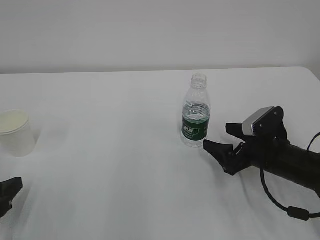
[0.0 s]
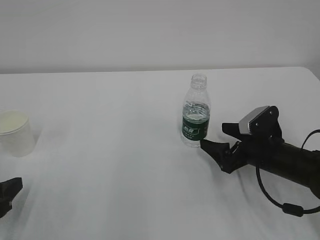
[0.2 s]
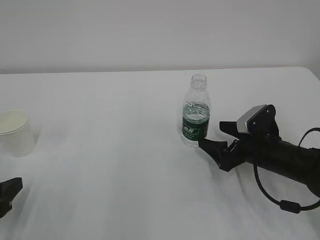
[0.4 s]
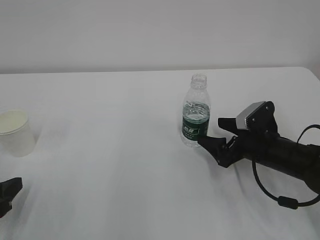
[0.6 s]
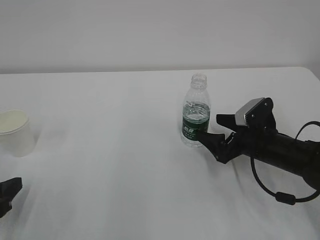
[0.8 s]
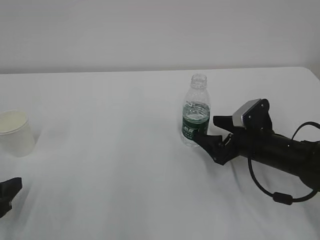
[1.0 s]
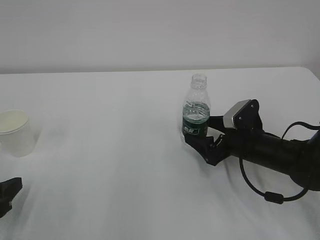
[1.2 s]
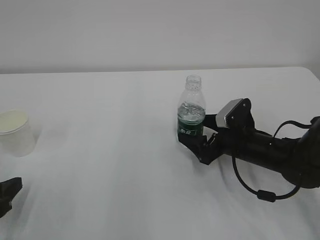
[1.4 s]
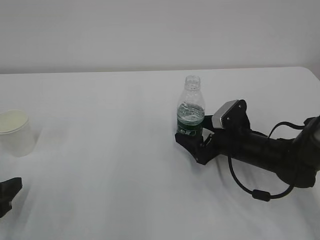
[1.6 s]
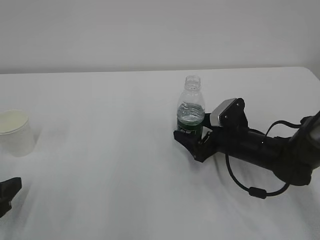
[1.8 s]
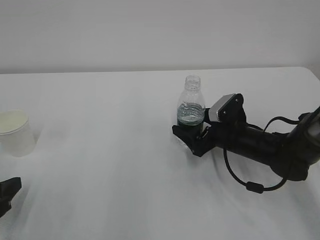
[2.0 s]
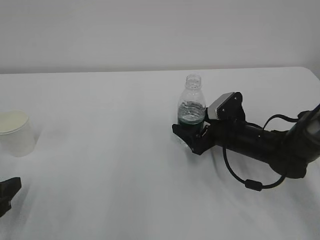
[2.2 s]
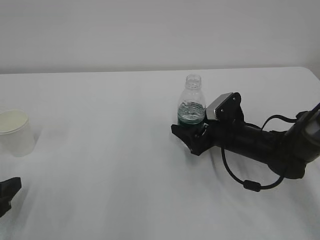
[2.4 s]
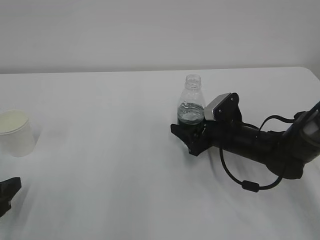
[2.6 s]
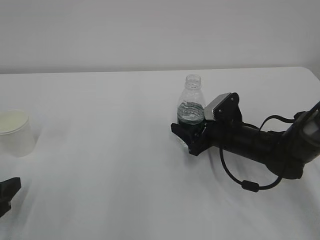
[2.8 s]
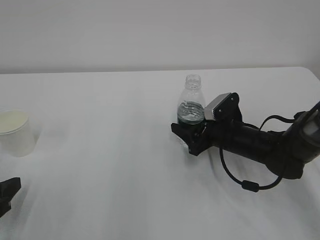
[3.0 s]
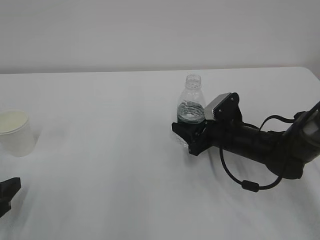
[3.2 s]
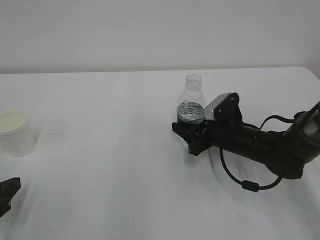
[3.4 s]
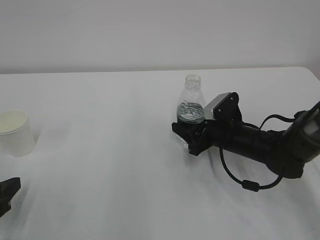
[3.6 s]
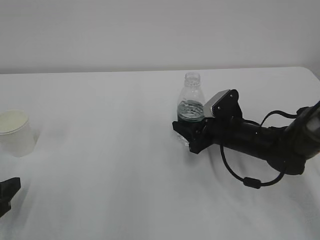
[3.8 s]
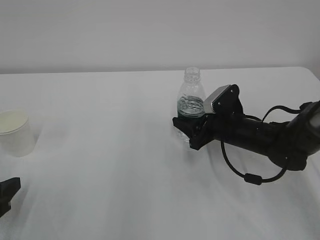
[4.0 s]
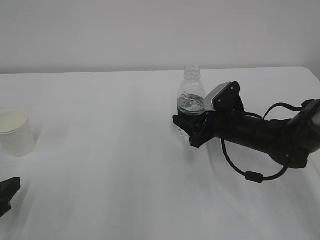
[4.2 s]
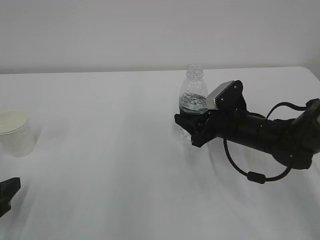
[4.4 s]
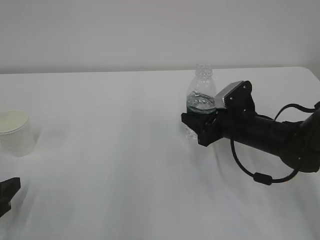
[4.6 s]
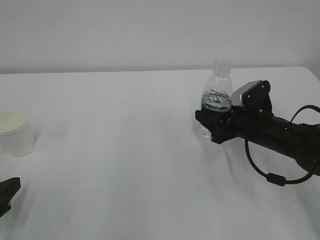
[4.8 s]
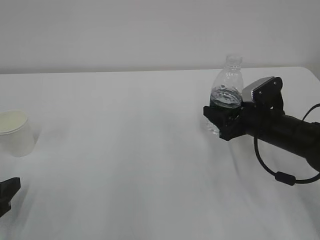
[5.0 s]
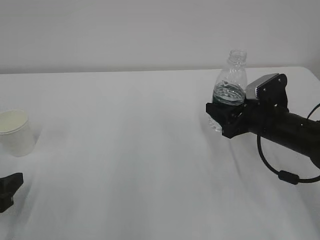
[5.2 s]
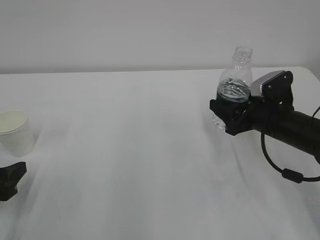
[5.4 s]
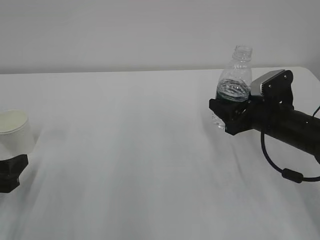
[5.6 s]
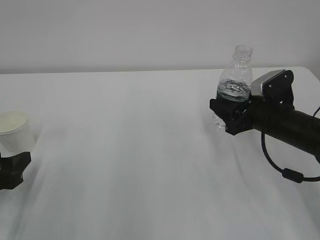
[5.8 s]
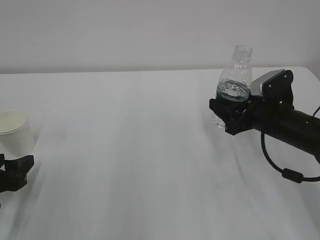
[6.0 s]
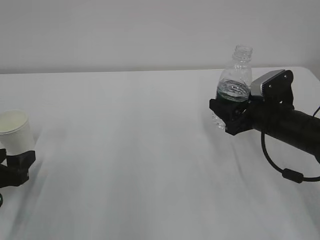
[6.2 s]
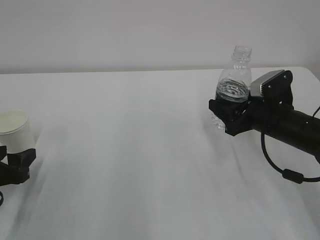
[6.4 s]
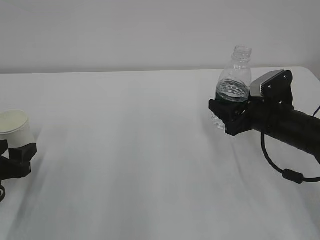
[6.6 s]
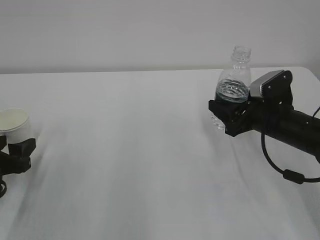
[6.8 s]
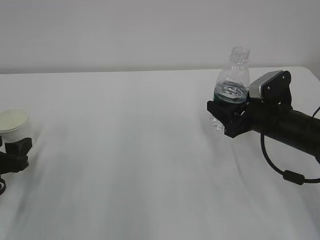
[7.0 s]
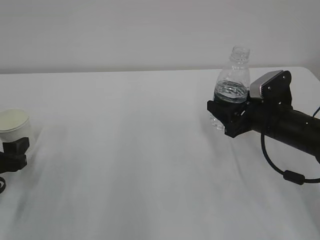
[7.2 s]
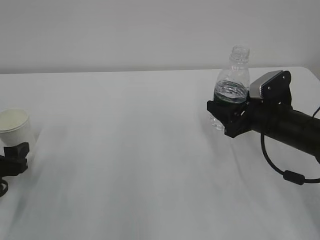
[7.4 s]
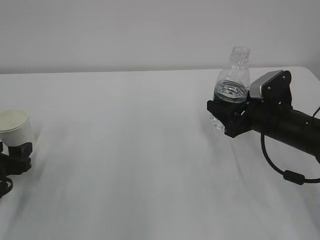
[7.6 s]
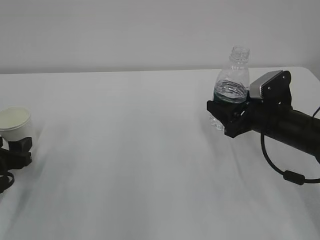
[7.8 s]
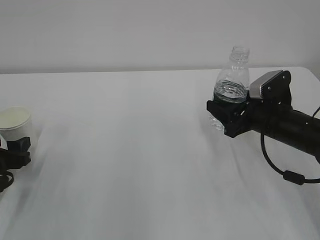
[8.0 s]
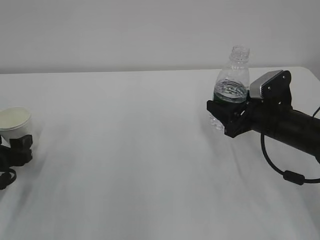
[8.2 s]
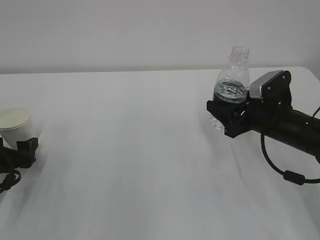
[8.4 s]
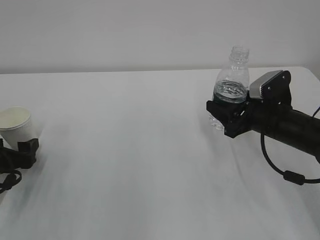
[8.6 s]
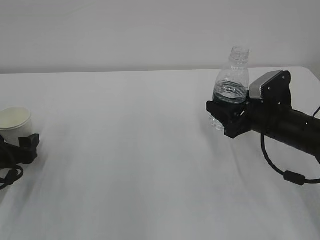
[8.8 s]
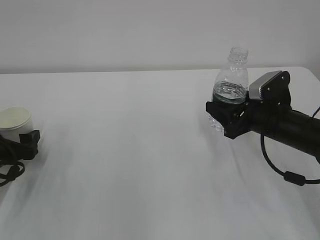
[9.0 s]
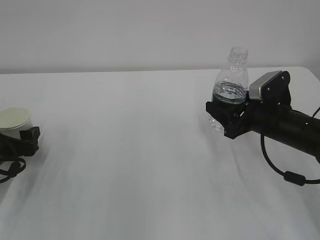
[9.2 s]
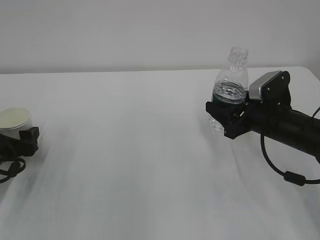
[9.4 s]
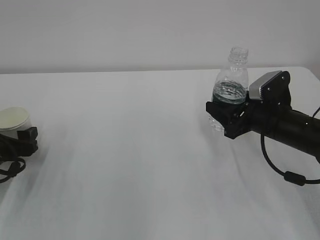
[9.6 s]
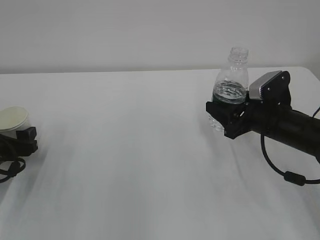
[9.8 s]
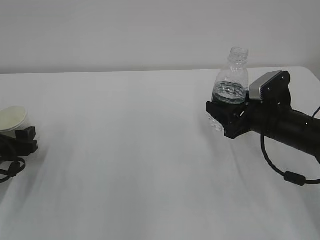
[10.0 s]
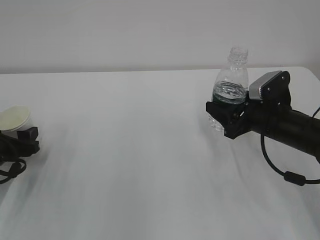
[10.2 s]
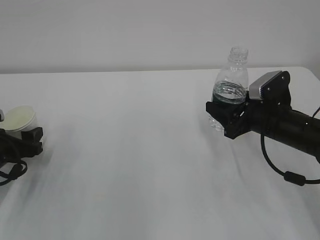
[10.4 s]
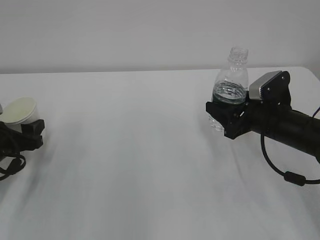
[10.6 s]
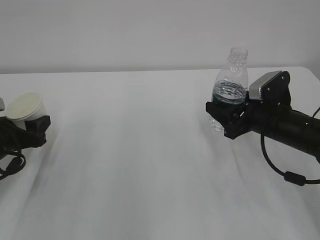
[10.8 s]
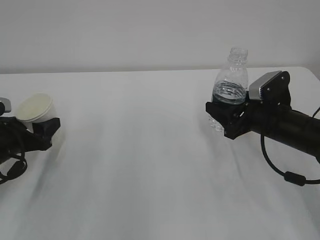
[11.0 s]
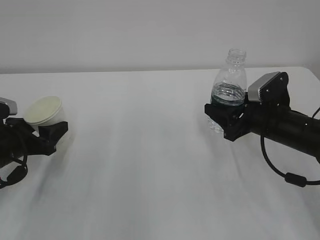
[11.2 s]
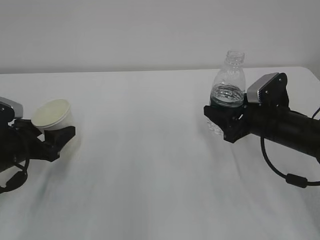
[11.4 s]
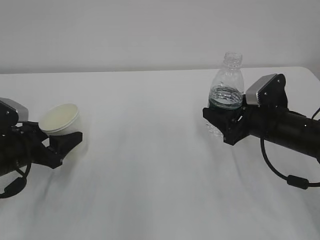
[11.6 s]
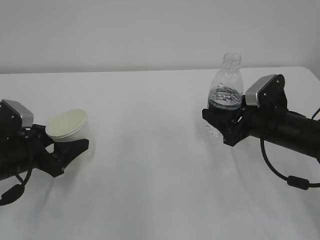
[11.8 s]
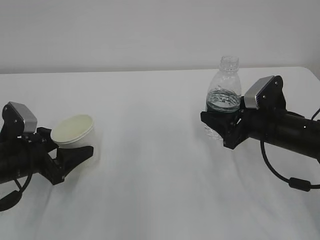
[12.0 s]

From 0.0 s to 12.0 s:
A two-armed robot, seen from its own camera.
From 0.0 s to 1.6 s: The right gripper shifts by roughly 5 cm.
From 1.6 s to 3.0 s: The right gripper closes.
From 3.0 s to 4.4 s: The grippers stay close to where they were, moving slightly.
From 4.4 s to 6.0 s: The right gripper is displaced to the right by approximately 5 cm.
From 6.0 s to 7.6 s: The grippers make only small movements.
From 7.6 s to 9.0 s: The left gripper opens.
From 9.0 s to 10.4 s: The left gripper closes its fingers.
From 10.4 s to 12.0 s: The left gripper travels to the right by roughly 5 cm.

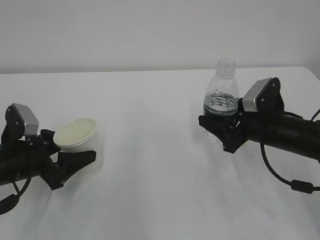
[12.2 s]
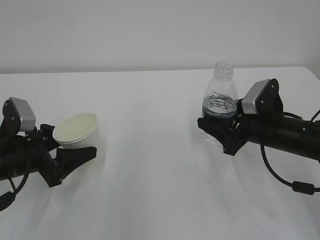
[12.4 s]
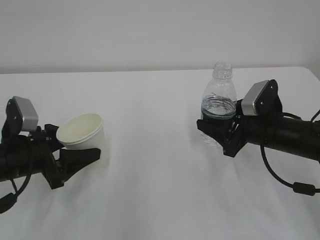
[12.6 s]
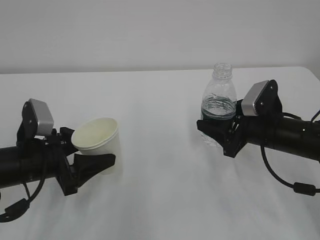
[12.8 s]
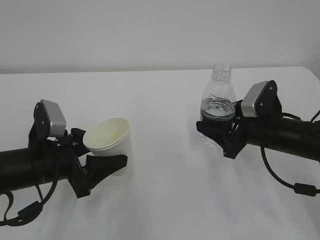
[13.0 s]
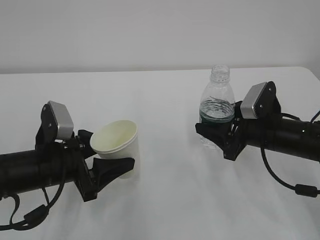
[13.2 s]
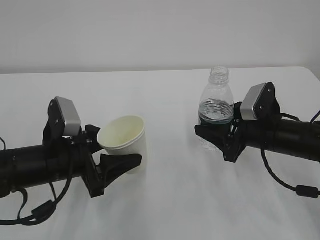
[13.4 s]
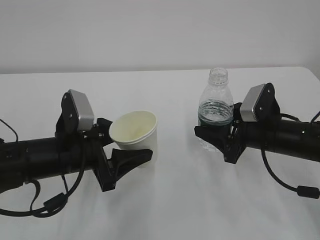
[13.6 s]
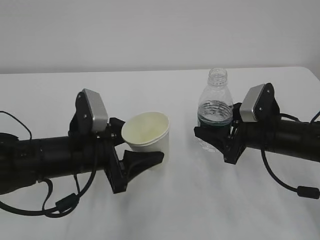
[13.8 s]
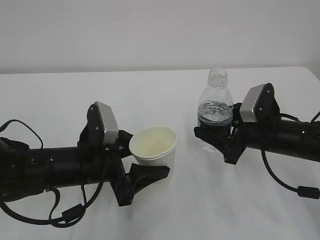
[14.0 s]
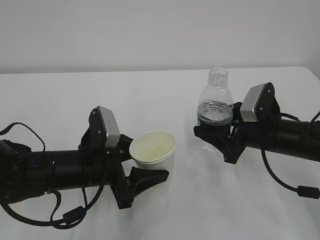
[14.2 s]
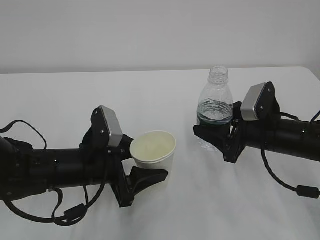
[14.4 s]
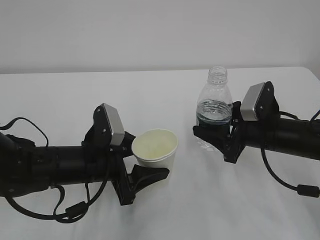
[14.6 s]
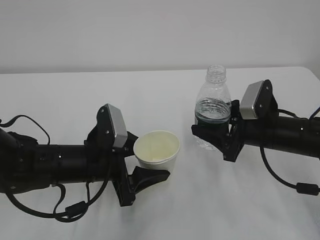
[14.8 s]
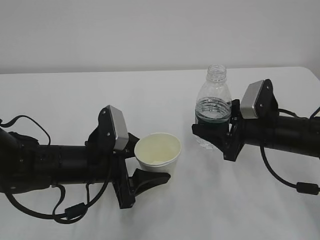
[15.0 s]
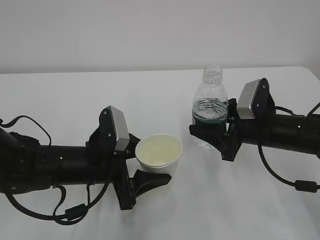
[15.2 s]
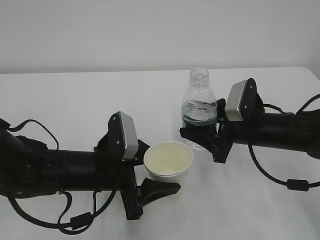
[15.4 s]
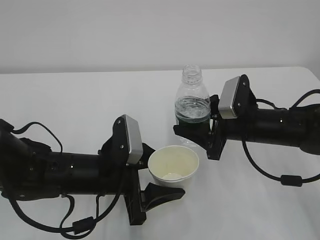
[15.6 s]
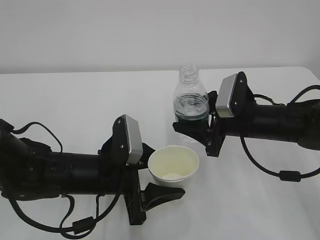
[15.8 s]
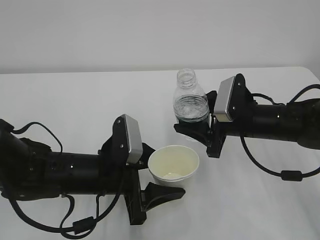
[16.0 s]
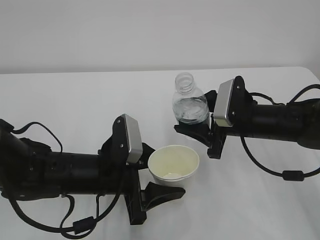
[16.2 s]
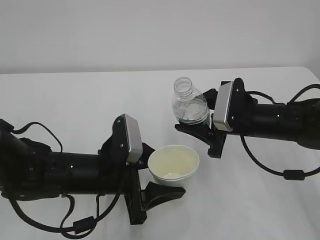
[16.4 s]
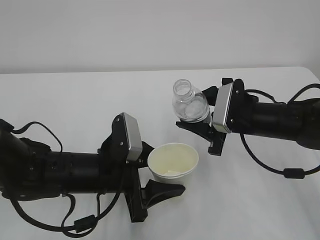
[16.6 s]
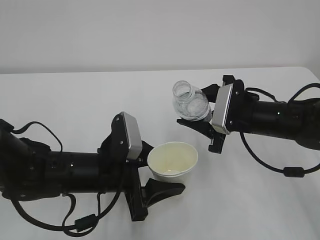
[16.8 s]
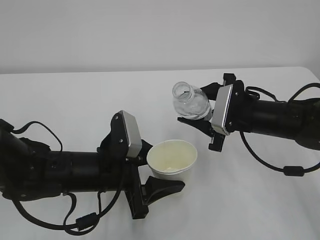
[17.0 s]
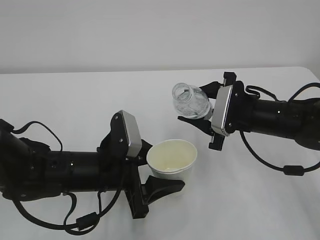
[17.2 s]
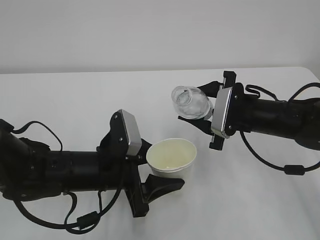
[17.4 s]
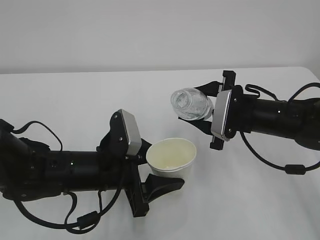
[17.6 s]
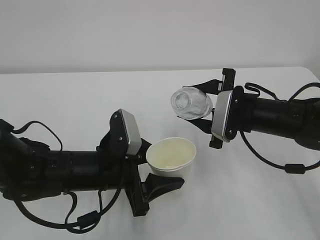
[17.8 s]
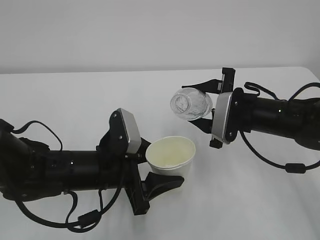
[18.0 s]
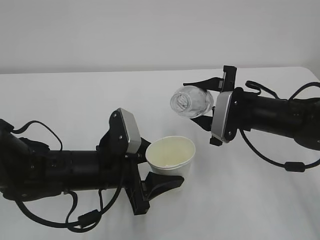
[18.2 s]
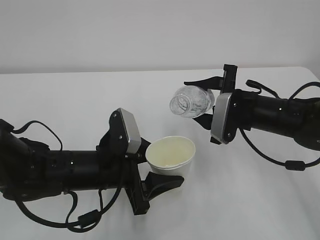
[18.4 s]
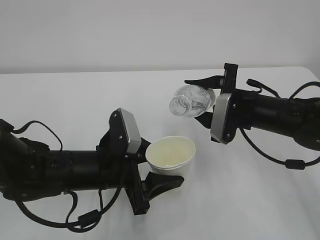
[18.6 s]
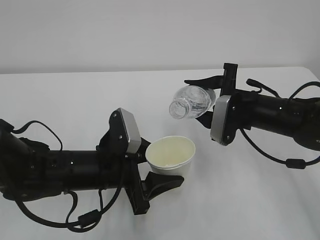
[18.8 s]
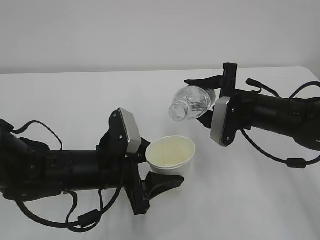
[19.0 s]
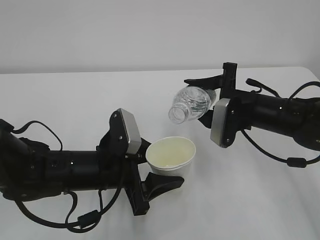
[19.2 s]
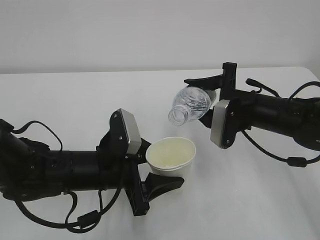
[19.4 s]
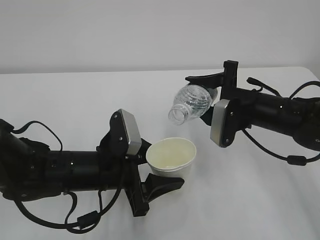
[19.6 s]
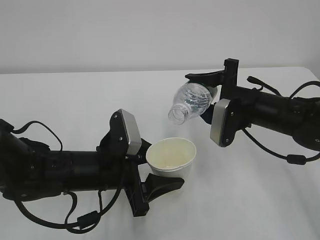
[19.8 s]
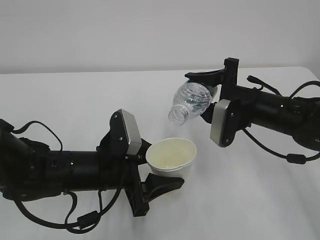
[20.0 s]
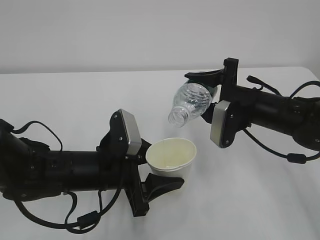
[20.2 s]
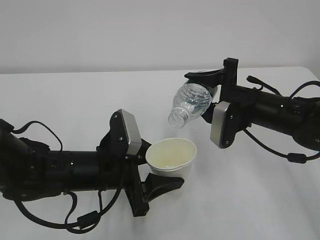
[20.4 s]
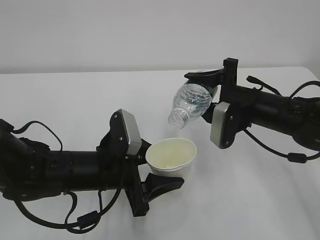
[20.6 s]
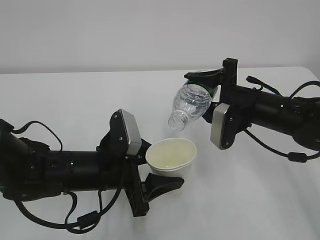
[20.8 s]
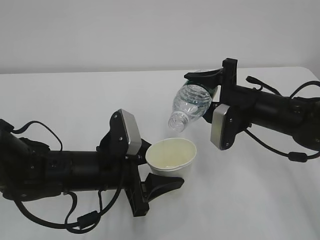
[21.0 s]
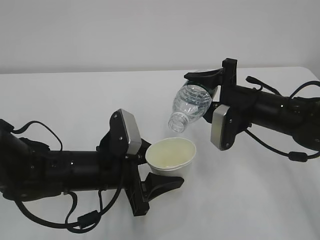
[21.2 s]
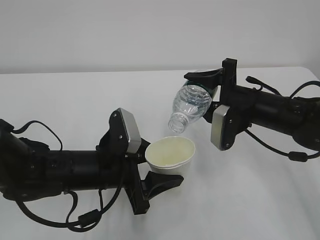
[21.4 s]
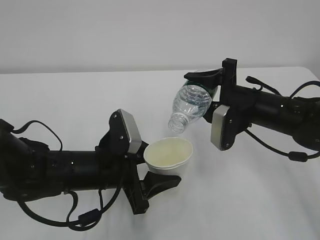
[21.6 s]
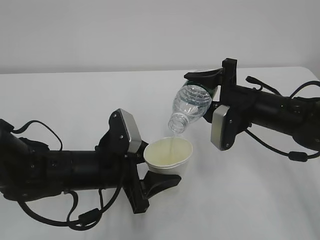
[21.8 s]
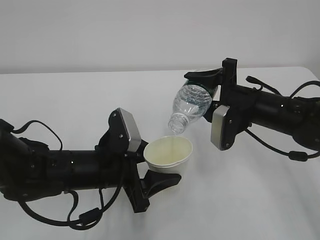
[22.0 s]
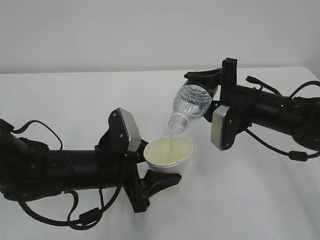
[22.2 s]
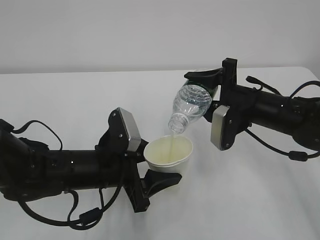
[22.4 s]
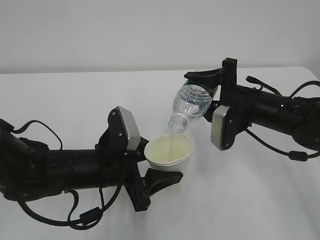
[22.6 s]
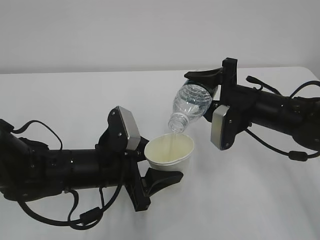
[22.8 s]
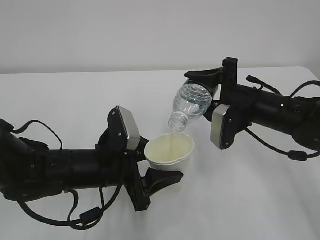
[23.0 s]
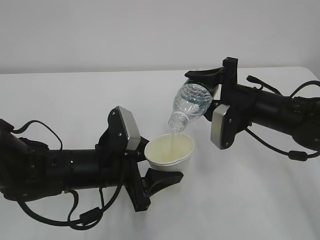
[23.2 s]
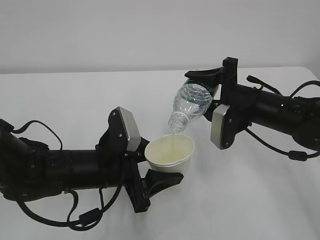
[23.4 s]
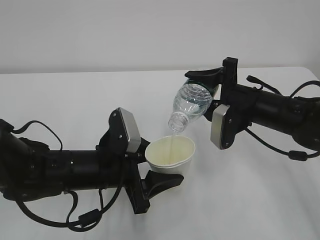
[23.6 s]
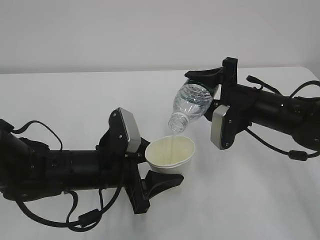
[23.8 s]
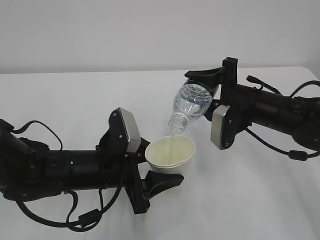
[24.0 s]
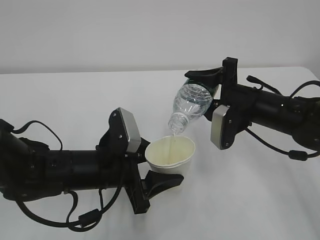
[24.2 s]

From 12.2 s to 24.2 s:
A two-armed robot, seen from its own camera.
From 12.2 s to 13.8 s: The left gripper moves to the right, roughly 10 cm.
From 13.8 s to 15.2 s: The grippers make only small movements.
From 18.2 s to 19.8 s: The grippers move only a little.
From 19.8 s to 21.2 s: There are only small adjustments of the grippers.
From 21.2 s to 24.2 s: Both grippers stay put.
